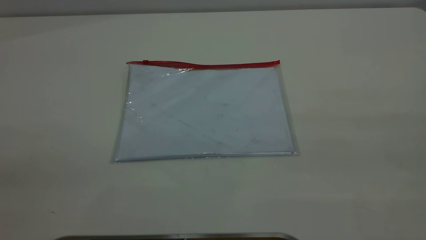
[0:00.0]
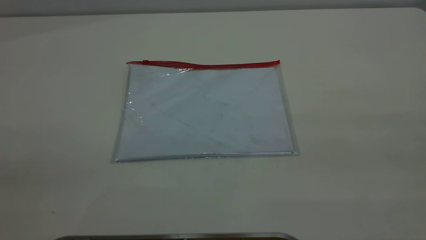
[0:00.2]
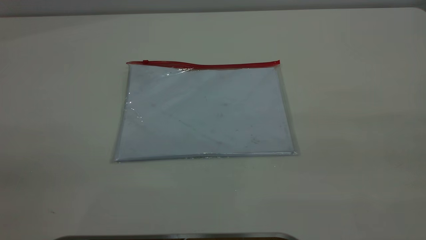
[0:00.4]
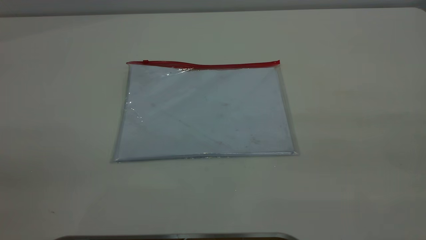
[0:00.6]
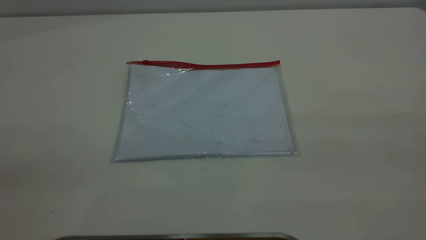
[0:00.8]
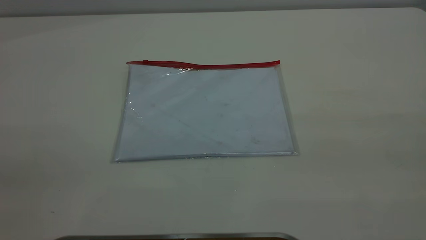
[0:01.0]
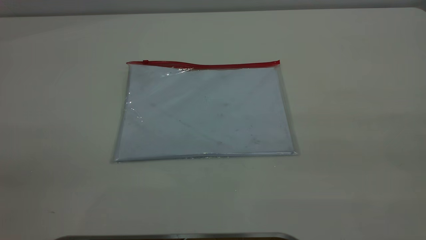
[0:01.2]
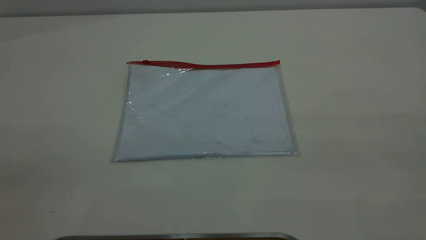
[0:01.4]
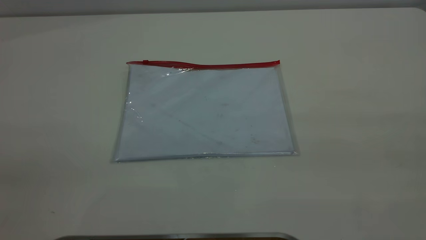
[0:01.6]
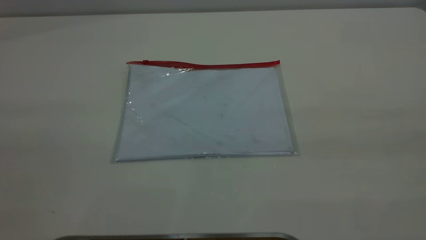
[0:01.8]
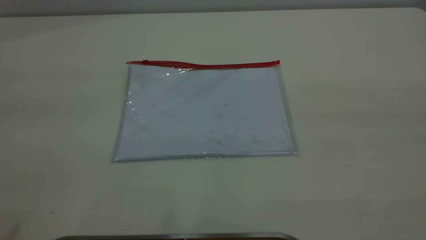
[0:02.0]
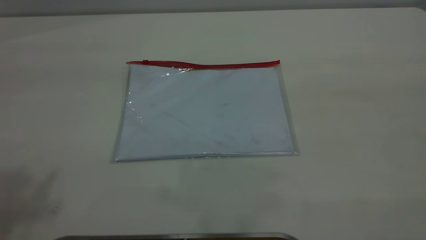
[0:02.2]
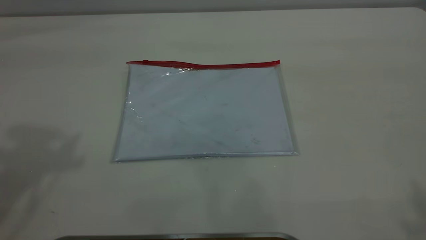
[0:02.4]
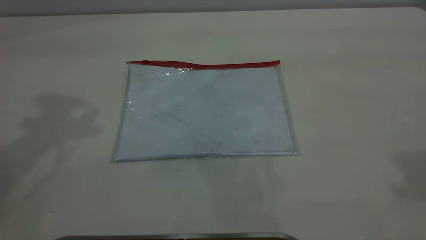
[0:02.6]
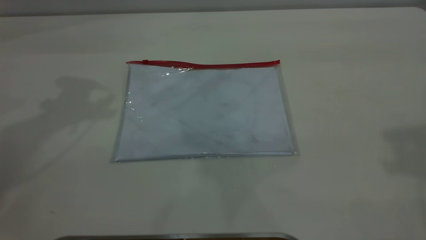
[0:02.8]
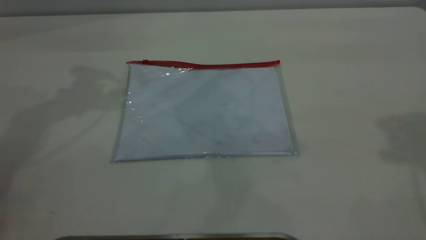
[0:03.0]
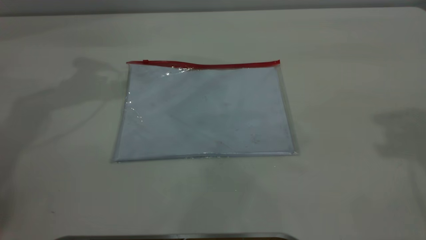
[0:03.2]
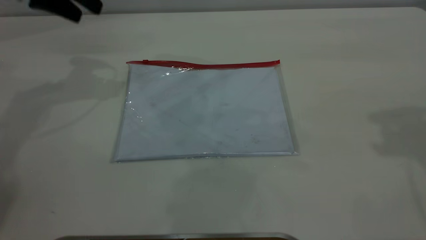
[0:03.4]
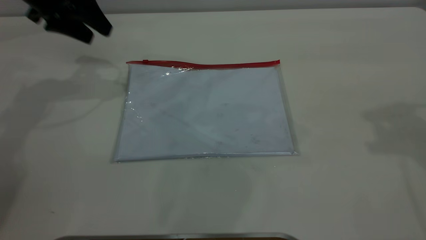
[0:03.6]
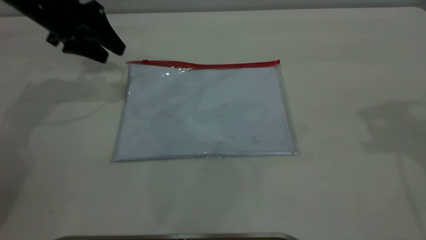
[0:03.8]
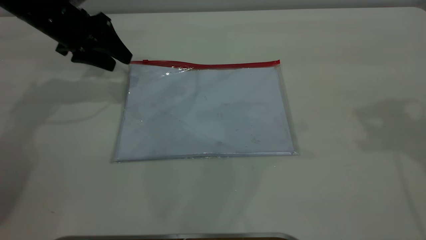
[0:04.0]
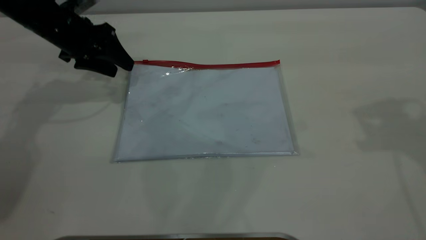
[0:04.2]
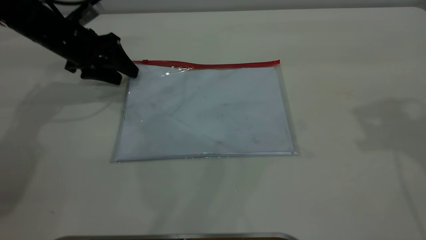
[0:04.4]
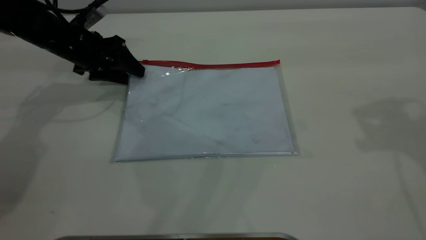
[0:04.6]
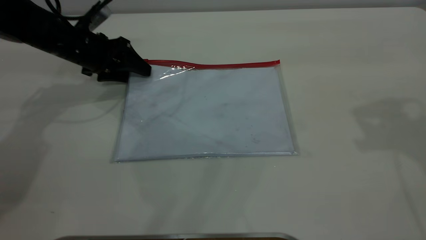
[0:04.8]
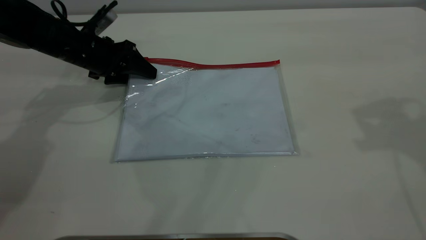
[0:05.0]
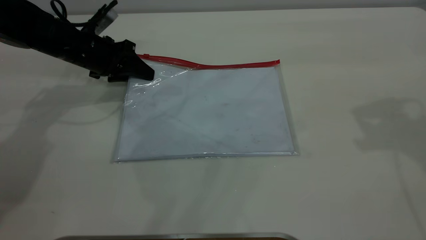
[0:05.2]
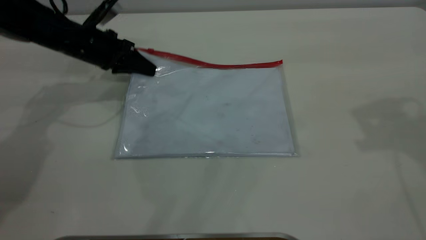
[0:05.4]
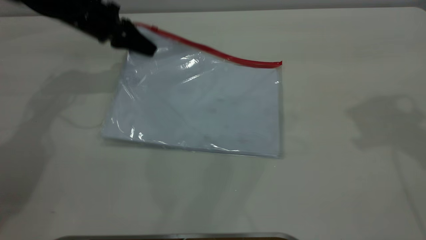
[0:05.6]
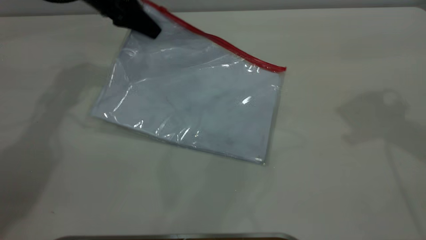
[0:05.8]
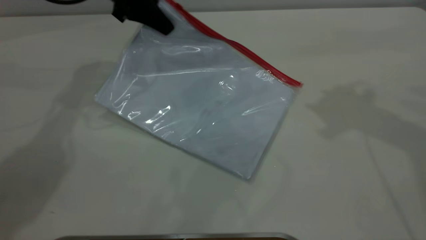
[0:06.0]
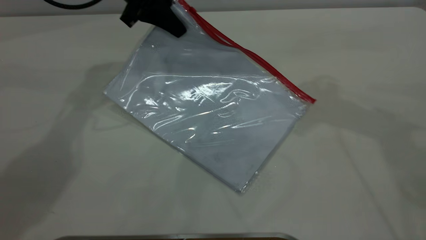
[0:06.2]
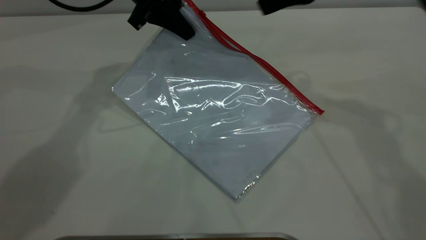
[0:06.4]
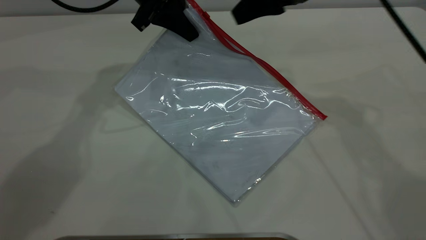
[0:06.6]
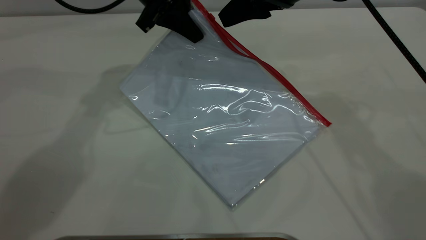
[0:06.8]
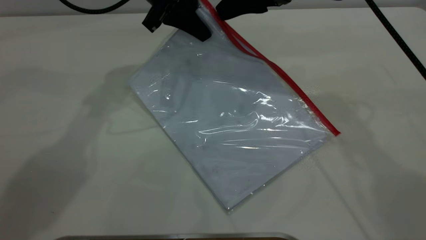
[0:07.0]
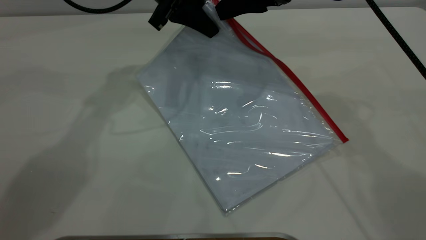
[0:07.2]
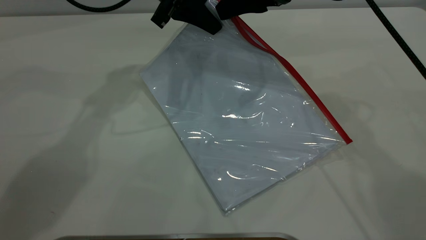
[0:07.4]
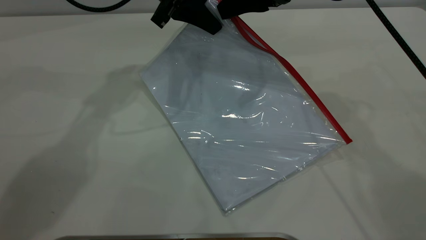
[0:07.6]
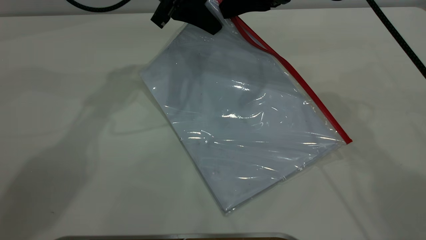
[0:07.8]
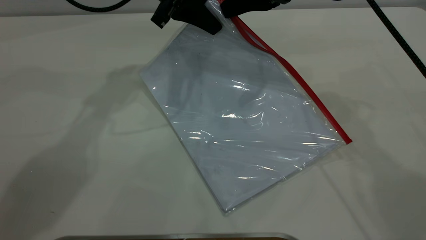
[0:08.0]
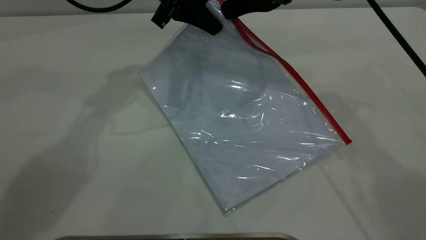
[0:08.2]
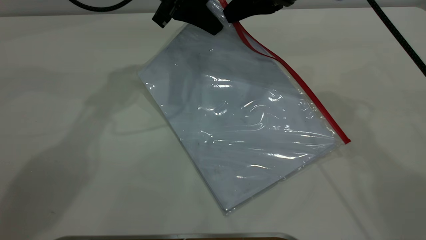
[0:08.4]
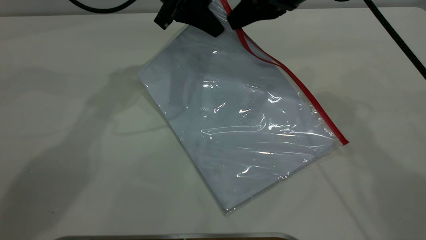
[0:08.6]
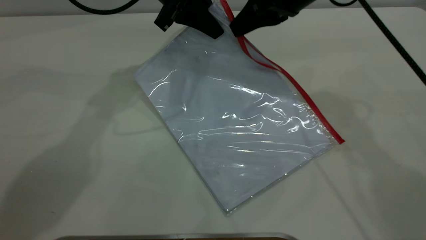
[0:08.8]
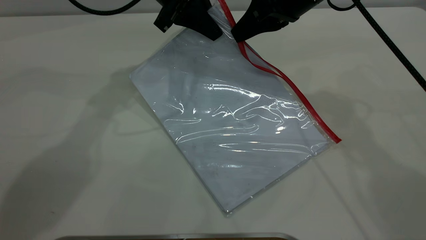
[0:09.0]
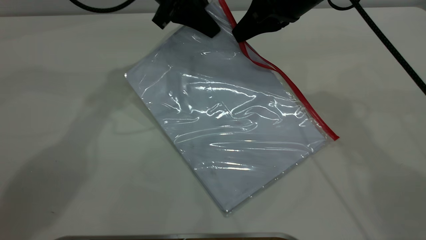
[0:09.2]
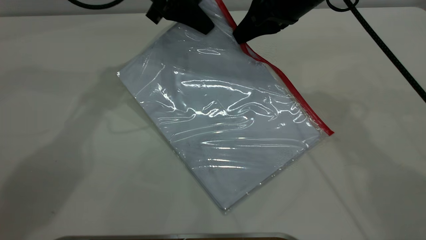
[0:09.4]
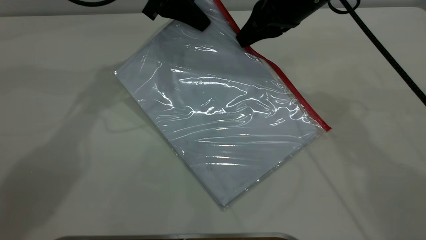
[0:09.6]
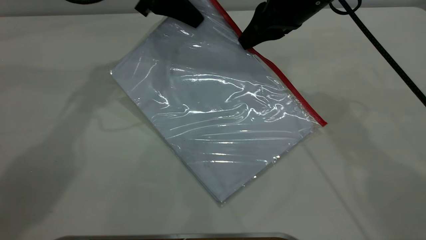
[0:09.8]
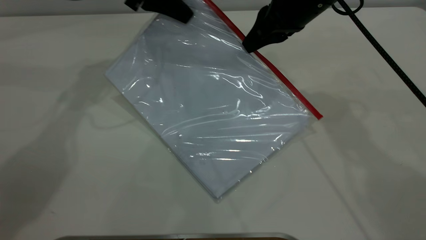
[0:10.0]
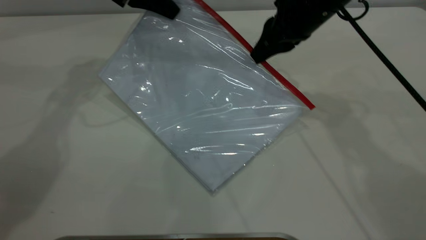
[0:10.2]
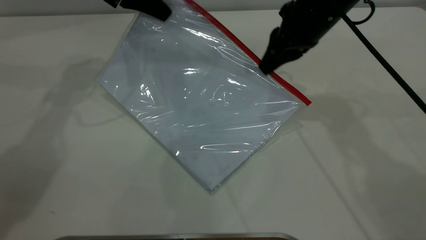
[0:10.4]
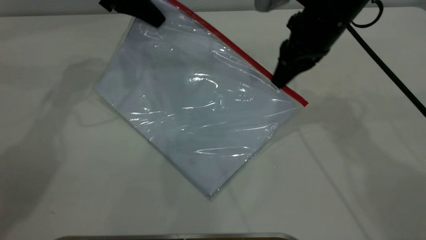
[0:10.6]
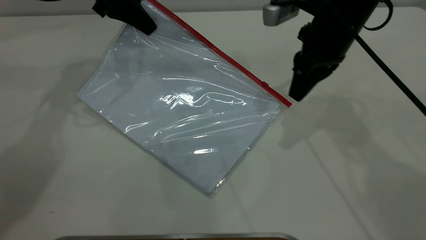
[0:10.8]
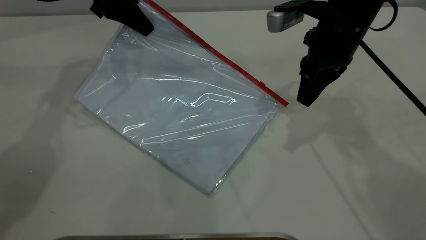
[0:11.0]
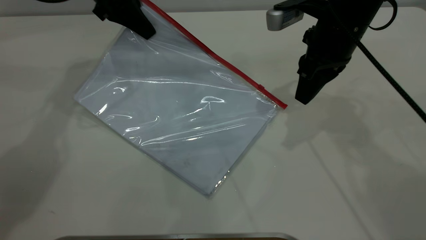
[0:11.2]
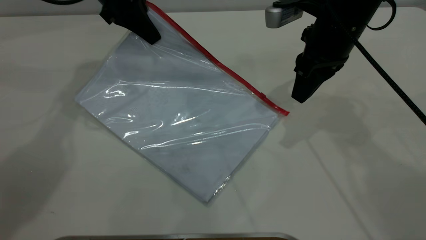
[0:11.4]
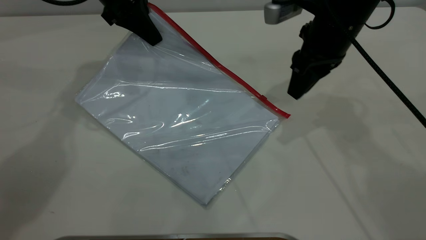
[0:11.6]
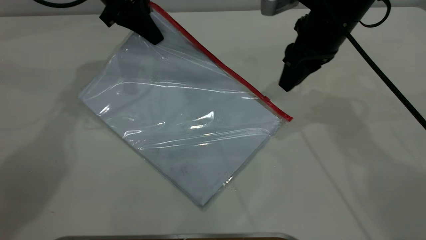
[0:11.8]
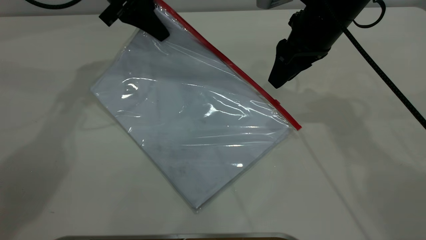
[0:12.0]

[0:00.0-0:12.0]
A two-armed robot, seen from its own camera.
Step, 0:00.0 to 0:05.4: Pick up the transparent plastic bag with the left gripper.
0:00.0 to 0:01.6: Both grippers stay about where they are.
0:03.0 to 0:04.4: The left gripper is displaced downward by some 20 cm.
0:04.4 to 0:06.0: The left gripper shifts approximately 15 cm upward and to the right, and closes its fingers. The right gripper is displaced to the left and forward by some 10 cm.
0:06.0 to 0:07.6: The right gripper shifts approximately 15 cm to the left, downward and forward, and closes. Meanwhile the left gripper goes roughly 5 cm to the right.
0:07.6 to 0:09.0: The right gripper closes its fingers.
0:09.0 to 0:10.4: The left gripper travels to the left by some 10 cm.
0:10.4 to 0:12.0: The right gripper opens up.

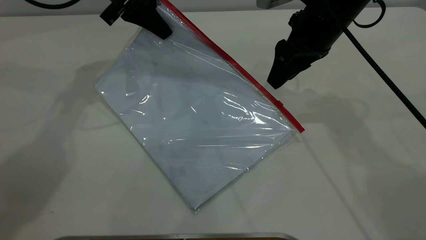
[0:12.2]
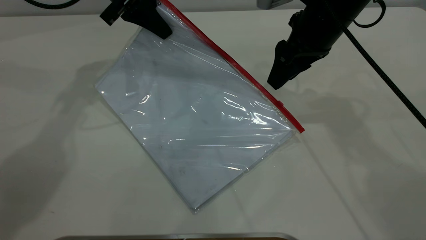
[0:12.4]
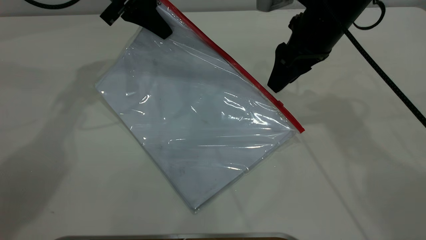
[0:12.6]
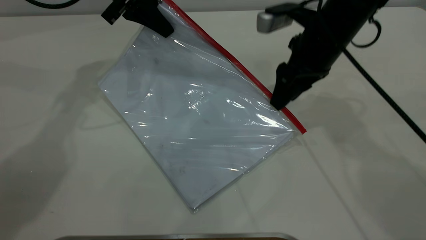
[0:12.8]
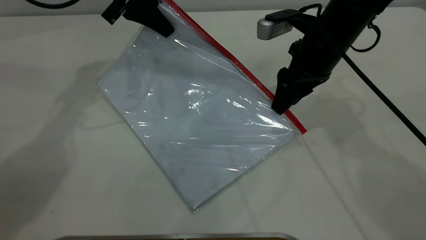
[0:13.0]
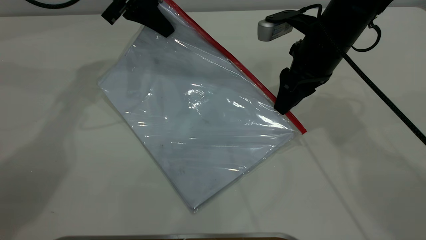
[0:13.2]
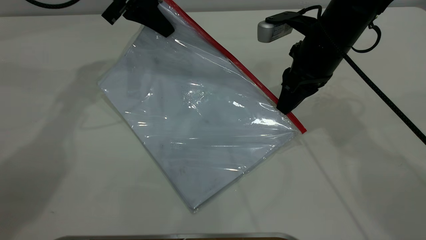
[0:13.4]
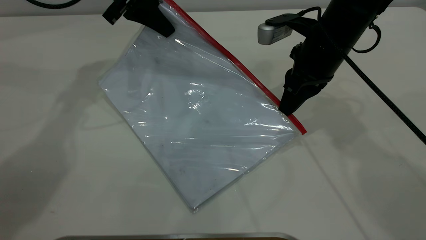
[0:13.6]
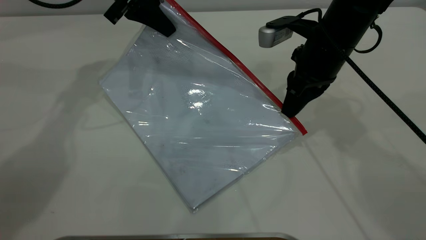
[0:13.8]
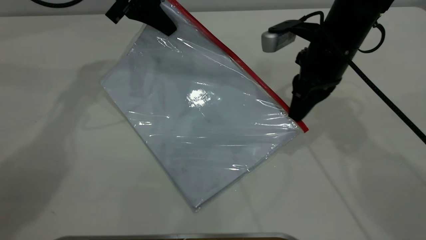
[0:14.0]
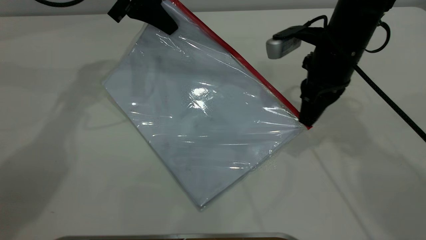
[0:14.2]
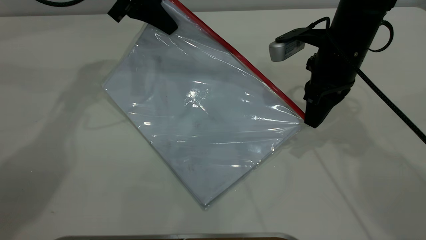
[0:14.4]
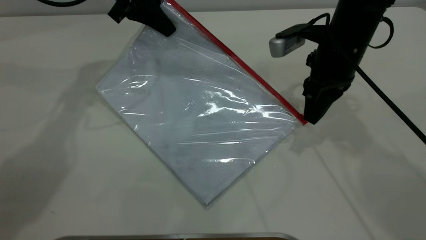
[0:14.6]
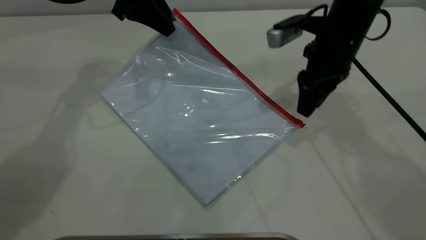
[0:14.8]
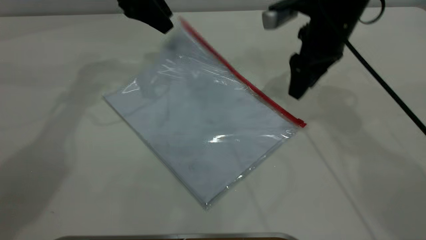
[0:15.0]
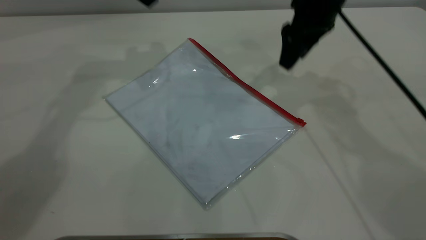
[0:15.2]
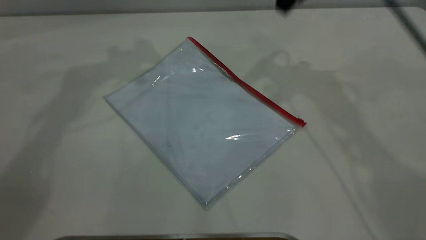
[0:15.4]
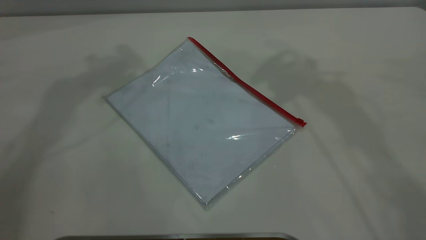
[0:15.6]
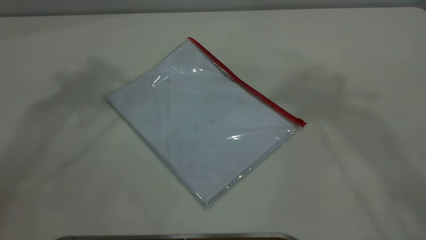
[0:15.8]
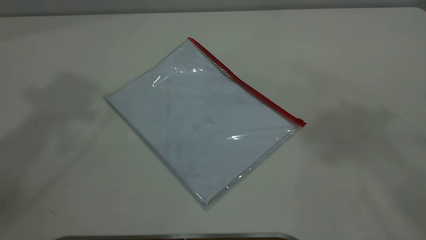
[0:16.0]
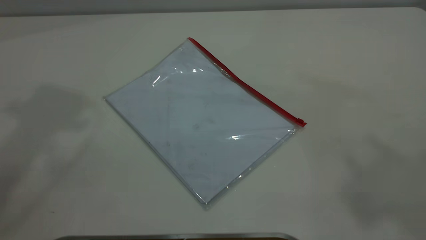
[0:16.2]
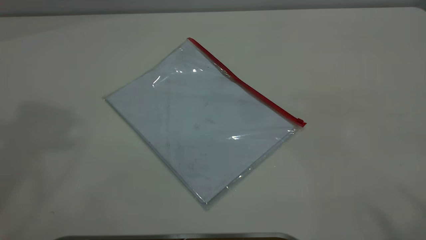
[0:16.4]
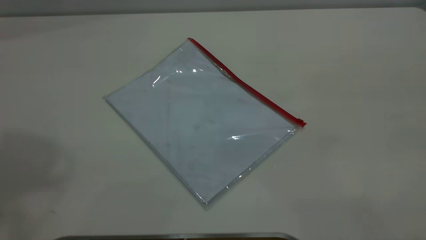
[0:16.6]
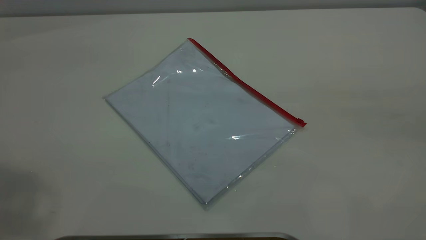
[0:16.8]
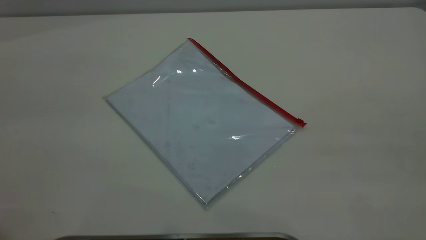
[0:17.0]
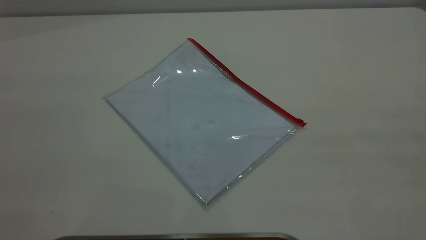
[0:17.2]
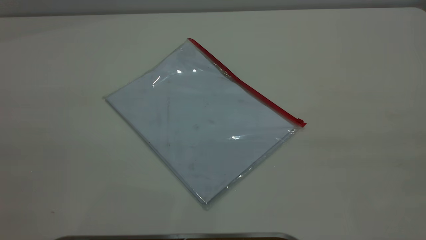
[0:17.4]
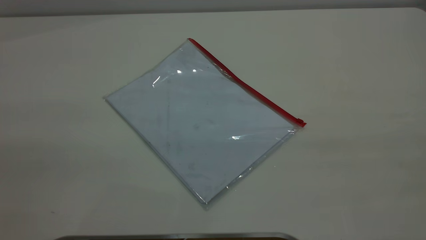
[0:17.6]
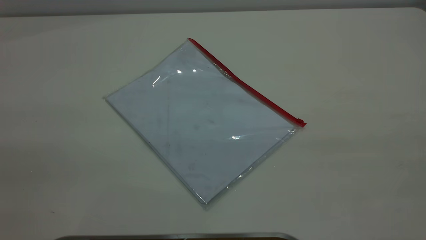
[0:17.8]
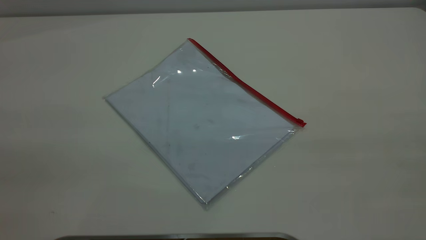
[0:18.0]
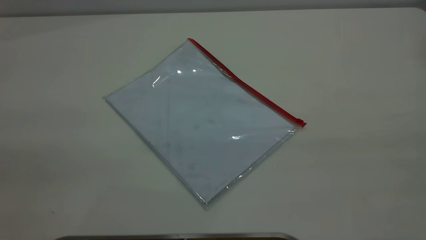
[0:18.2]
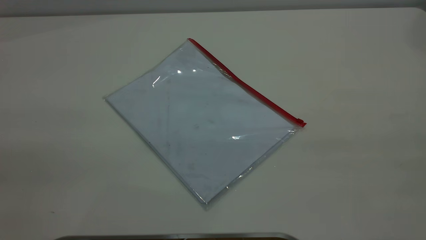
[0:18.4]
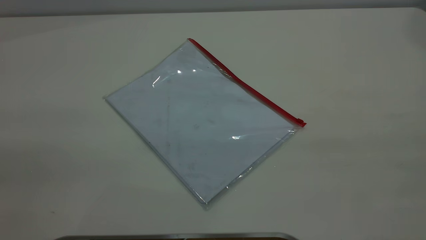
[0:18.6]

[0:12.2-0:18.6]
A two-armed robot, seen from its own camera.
Step, 0:12.2 to 0:14.8: Pulling up the zipper on the transparent plastic bag with the right gripper to close it.
0:12.2 to 0:13.8: The right gripper closes its fingers.
0:13.8 to 0:15.4: The right gripper travels upward and forward by about 20 cm, and opens up; the left gripper shifts about 15 cm upward, and opens up.
0:15.4 to 0:17.0: The right gripper shifts roughly 40 cm backward.
